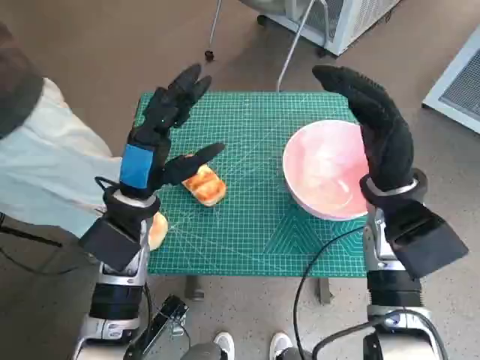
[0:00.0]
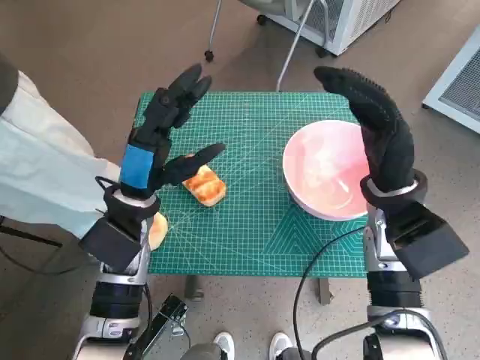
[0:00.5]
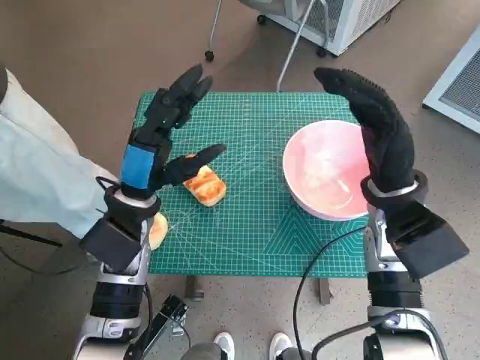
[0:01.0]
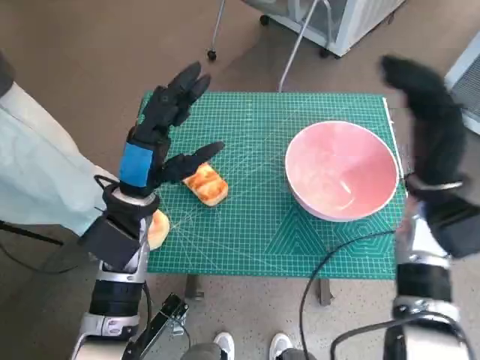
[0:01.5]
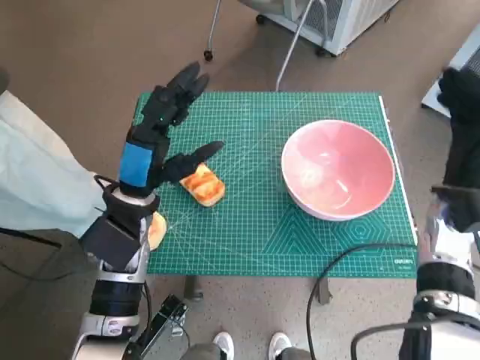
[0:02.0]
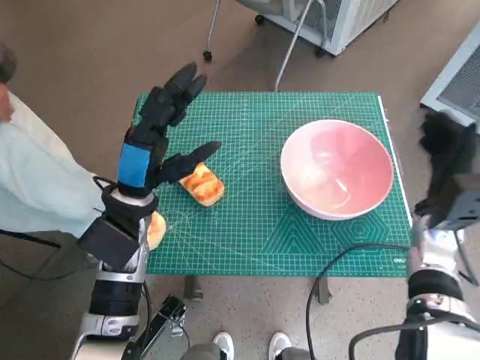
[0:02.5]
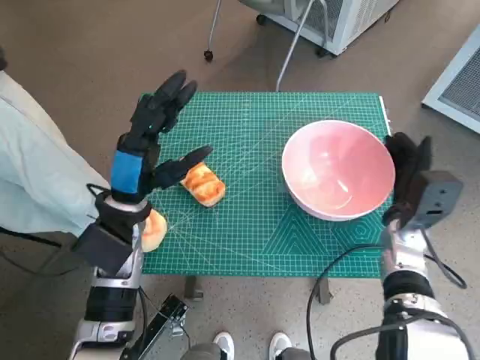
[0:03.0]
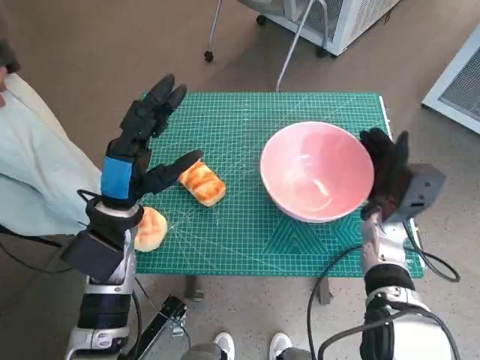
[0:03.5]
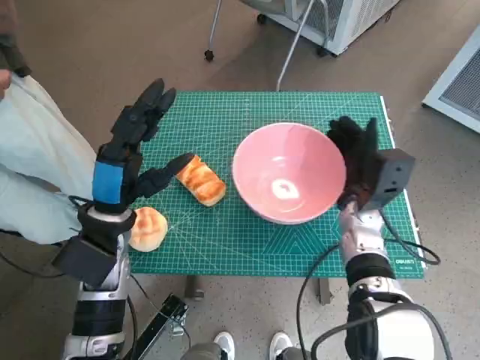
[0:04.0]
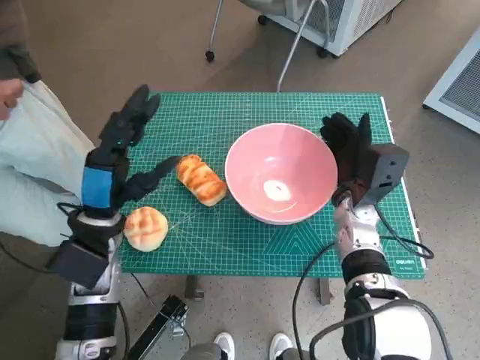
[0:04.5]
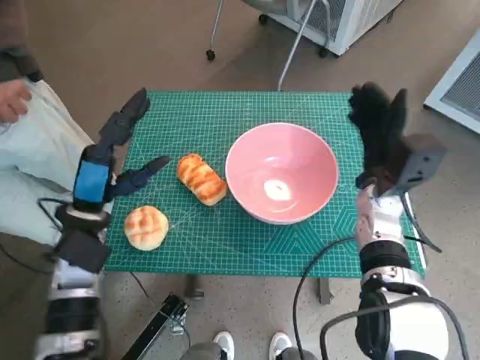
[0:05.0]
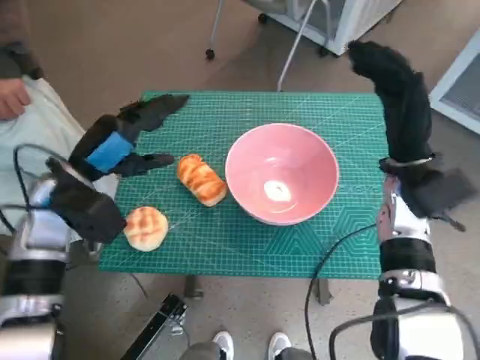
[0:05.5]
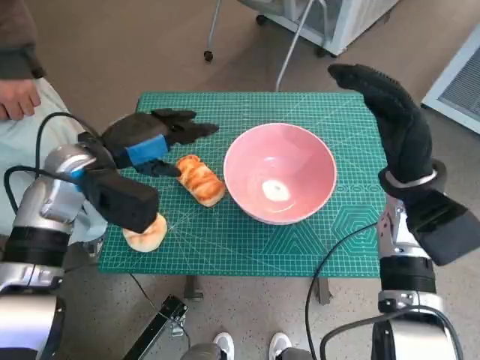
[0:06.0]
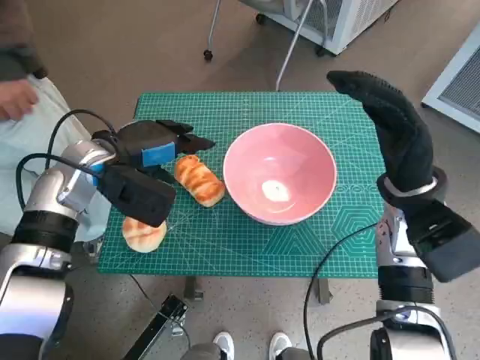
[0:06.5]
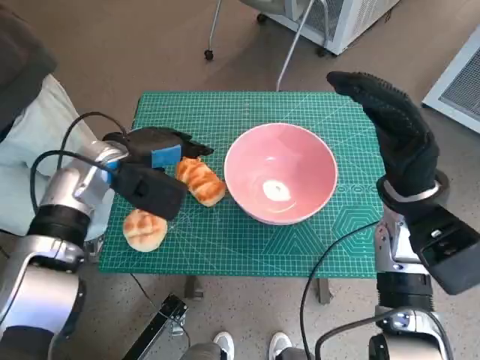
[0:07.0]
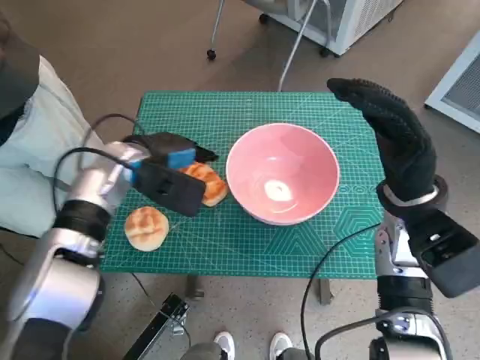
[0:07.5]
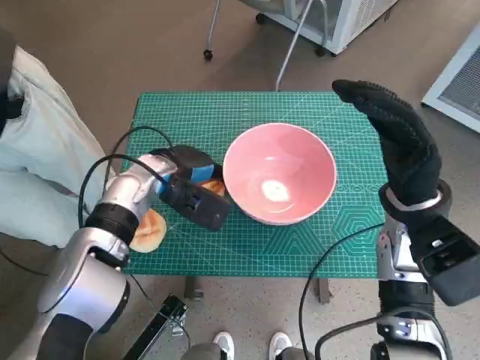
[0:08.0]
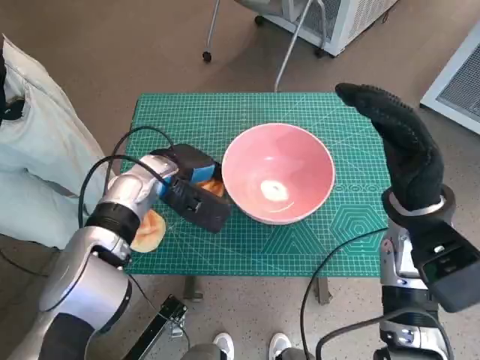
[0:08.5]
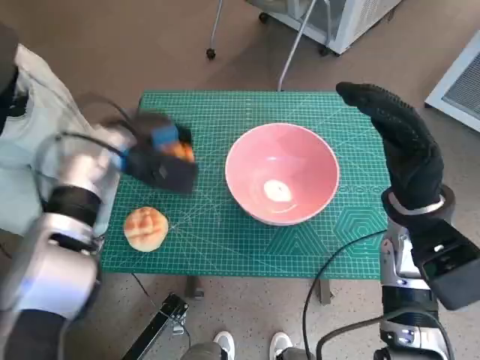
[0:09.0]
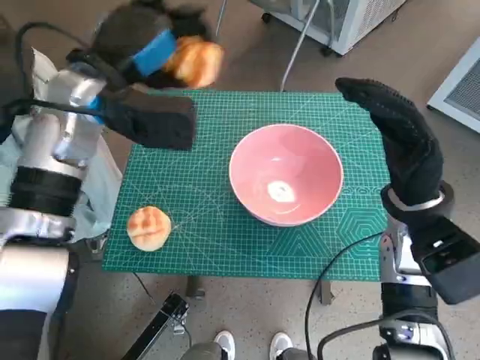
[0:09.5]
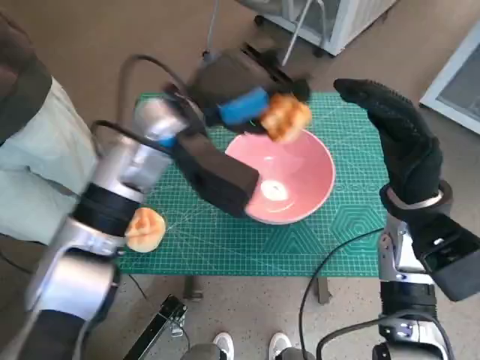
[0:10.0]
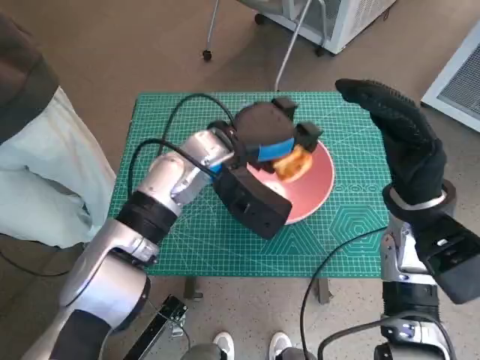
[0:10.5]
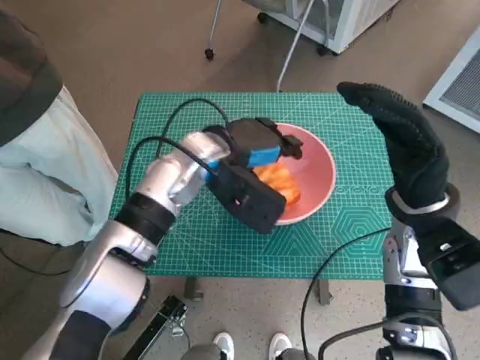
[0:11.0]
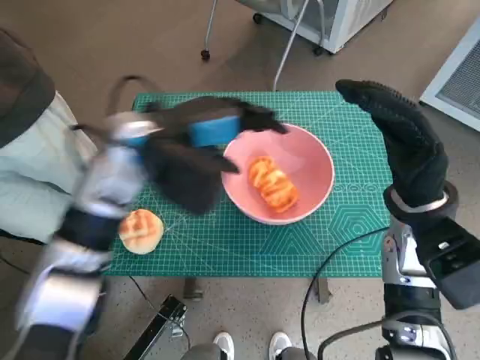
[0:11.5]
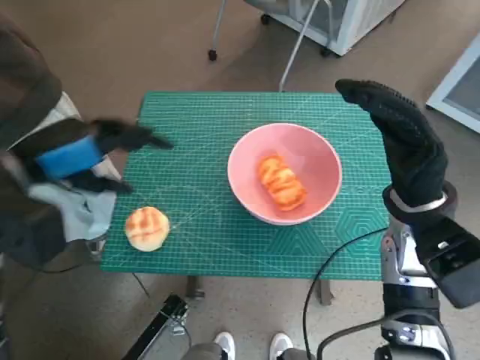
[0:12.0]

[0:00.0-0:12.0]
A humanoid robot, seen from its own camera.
Task of the whole recording: Push the bowl to the center of the table and put the bread into the bowl.
Step, 0:00.0 to 0:04.5: Move the pink bowl to the center of table with right hand.
Step, 0:05.0 to 0:08.0: Grasp the long bread with left hand.
Step, 0:08.5 to 0:11.0: Place the long bread in pink bowl with left hand.
0:02.0 to 0:04.0: The right hand shifts some 10 cm to the left and downward.
0:04.0 to 0:06.0: The left hand travels upward and forward by about 10 cm, while the right hand travels upward by roughly 10 cm.
0:06.0 to 0:08.0: The left hand heads to the right and downward, covering some 10 cm.
0:08.0 to 0:10.0: The left hand shifts some 15 cm upward and to the right.
0:10.0 to 0:12.0: The left hand goes some 15 cm to the left and backward.

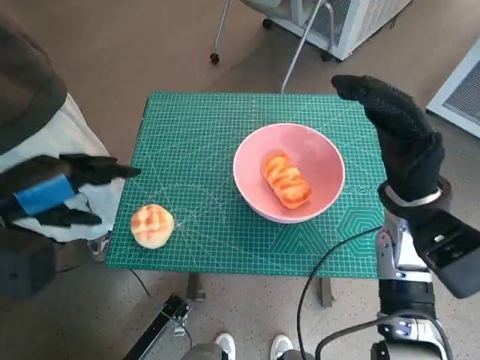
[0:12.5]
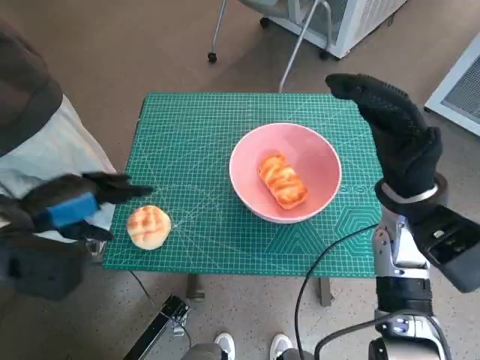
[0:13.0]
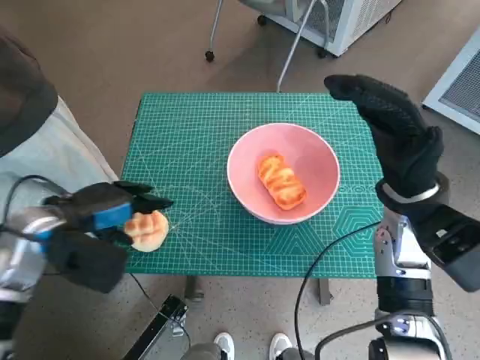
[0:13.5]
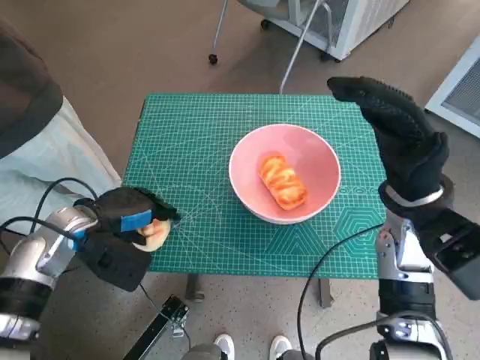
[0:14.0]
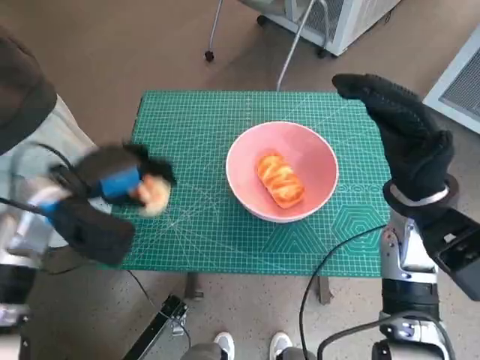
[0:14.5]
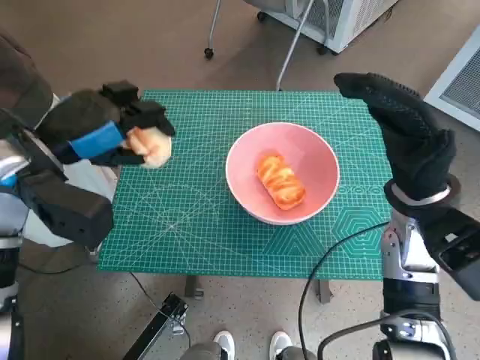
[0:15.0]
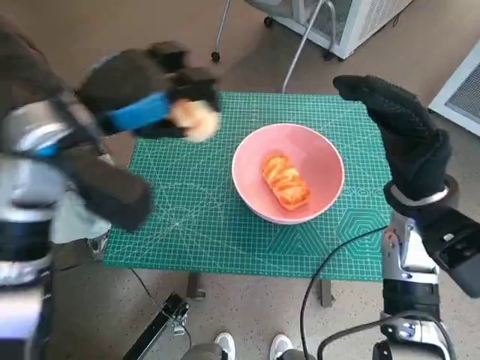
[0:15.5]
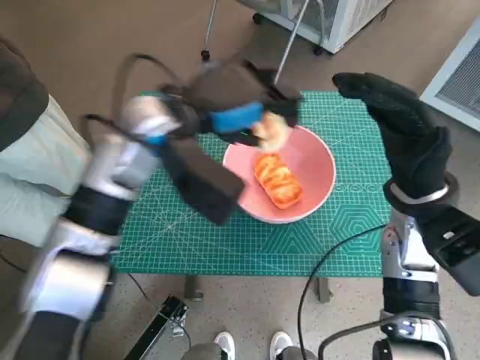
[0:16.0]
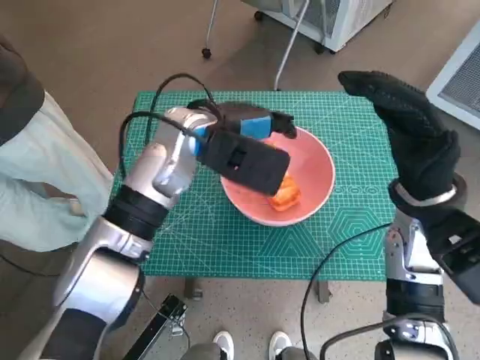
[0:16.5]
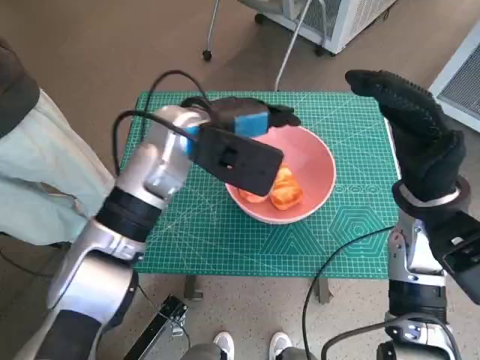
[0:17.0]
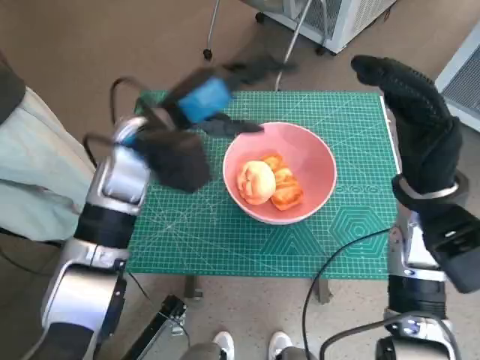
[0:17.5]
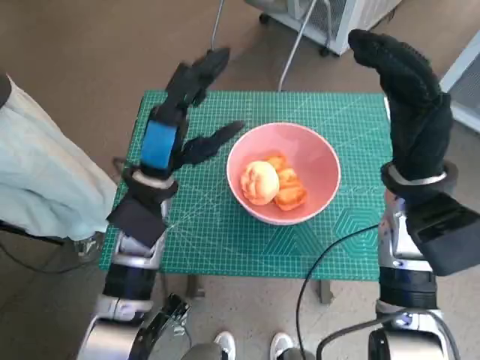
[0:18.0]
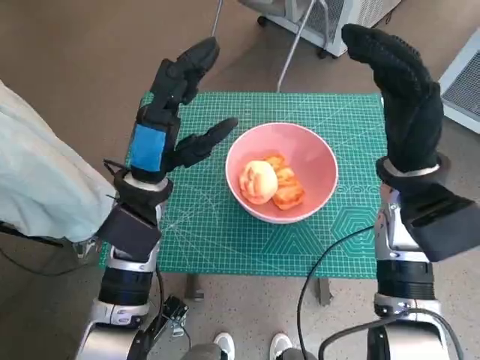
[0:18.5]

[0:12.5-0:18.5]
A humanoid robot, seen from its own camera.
Task of the whole recording: Push the bowl to the center of the table and put the bread into the bowl.
Step, 0:12.5 to 0:14.0: Grasp the round bread with left hand.
Step, 0:14.5 to 0:17.0: Place the round bread in pink bowl with left hand.
0:12.5 to 0:14.5: The left hand heads downward and forward, covering approximately 10 cm.
0:14.5 to 0:16.5: The left hand shifts roughly 15 cm to the right.
0:16.5 to 0:18.5: The left hand goes approximately 10 cm to the left, backward and downward.

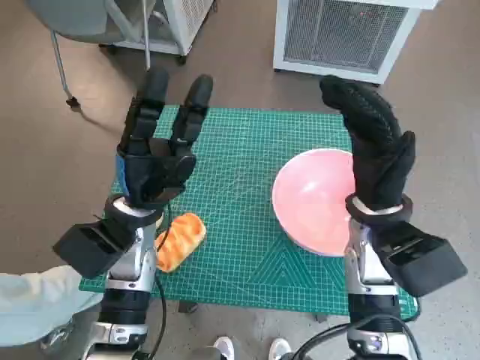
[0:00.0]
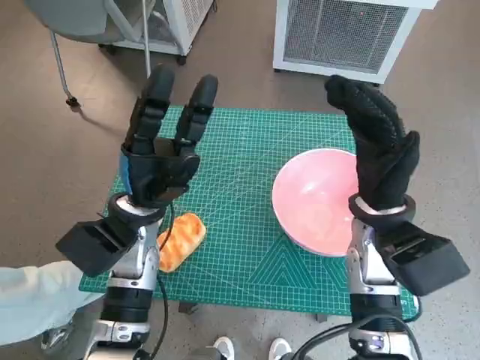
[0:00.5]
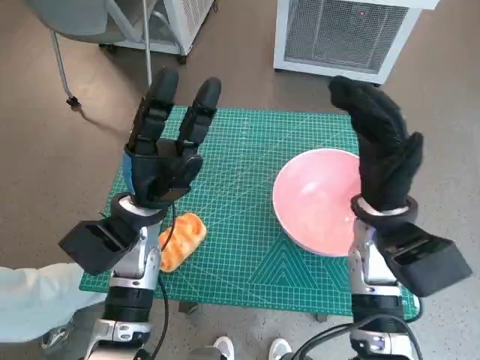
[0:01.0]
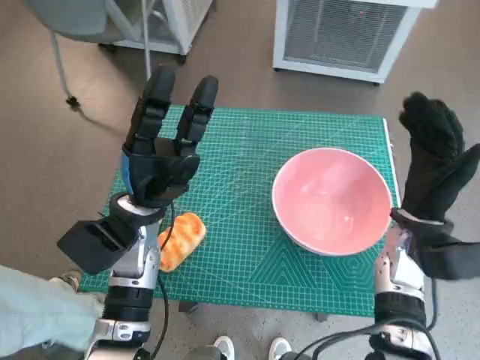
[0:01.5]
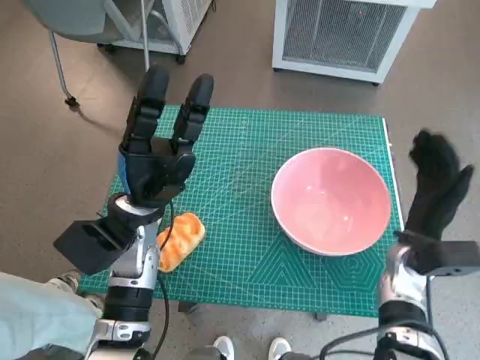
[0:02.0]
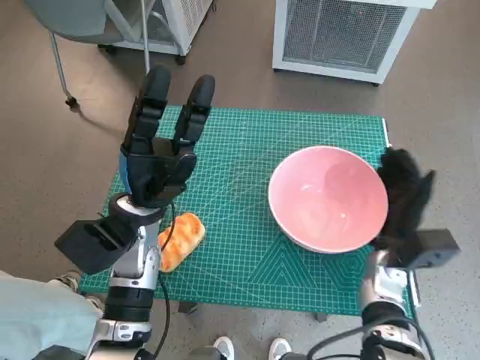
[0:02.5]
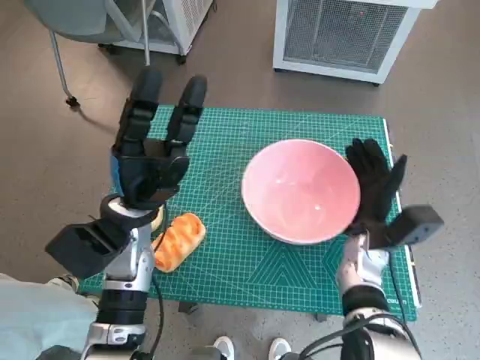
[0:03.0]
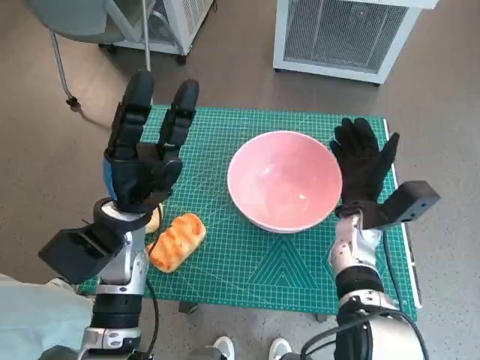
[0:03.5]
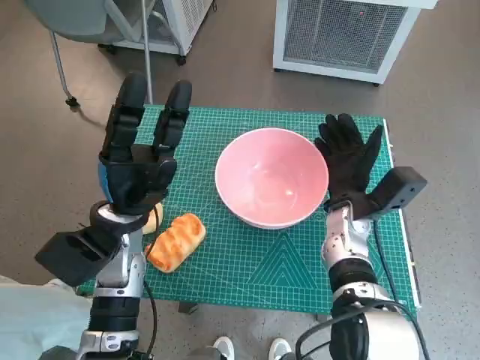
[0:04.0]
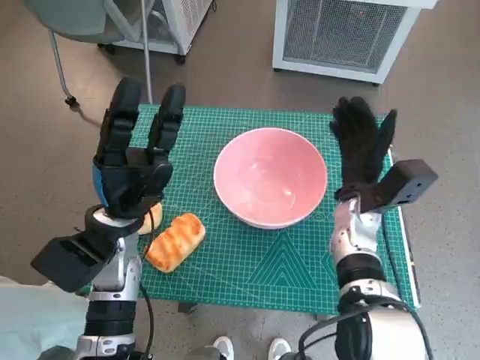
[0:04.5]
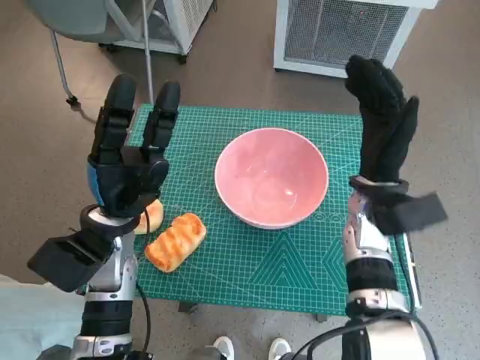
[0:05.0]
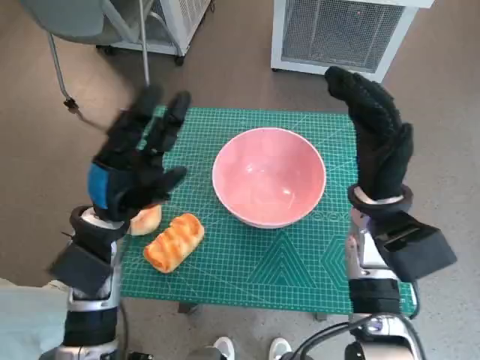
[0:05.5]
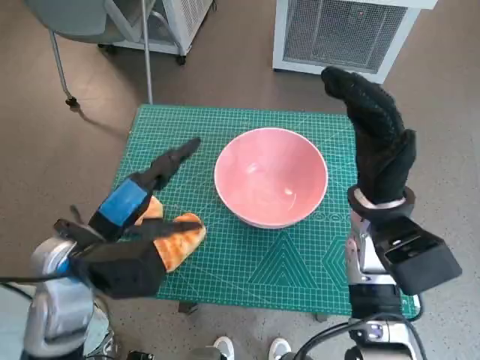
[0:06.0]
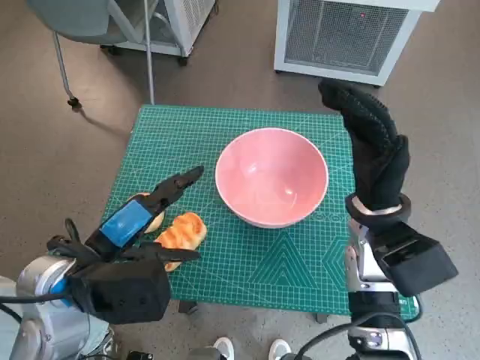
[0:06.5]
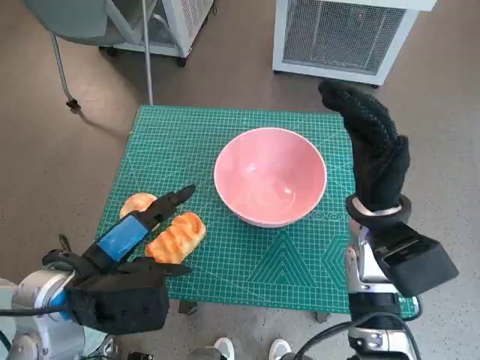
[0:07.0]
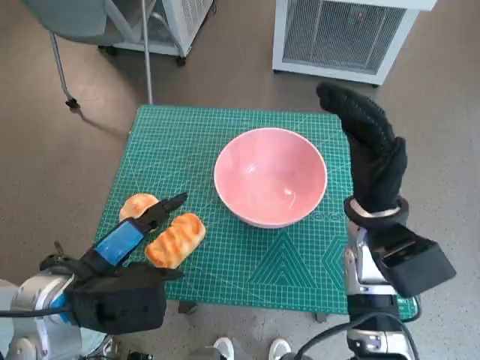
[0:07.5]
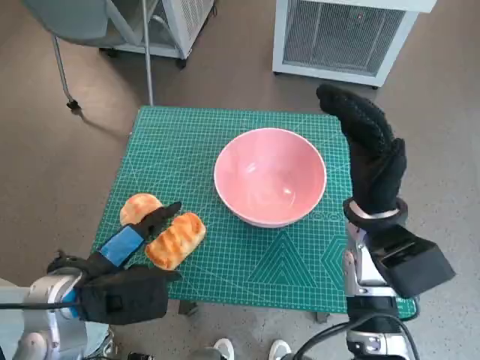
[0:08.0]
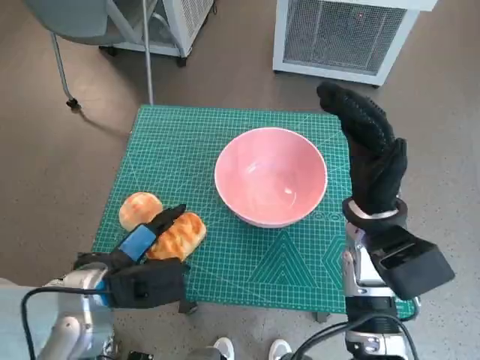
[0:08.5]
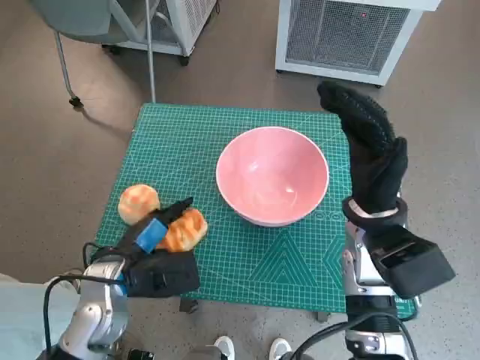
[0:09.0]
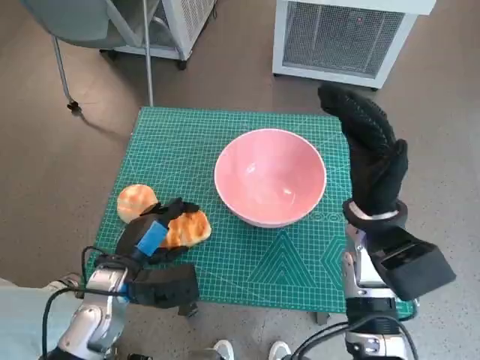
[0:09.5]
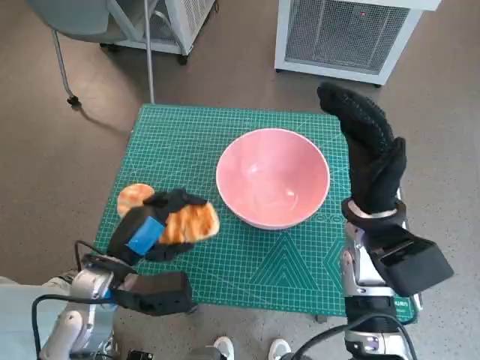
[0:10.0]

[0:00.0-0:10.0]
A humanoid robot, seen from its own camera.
Task of the whole recording: Push the bowl to the center of the table and put the bread into the bowl.
Step, 0:00.0 to 0:04.0: Move the pink bowl to the center of table with right hand.
Step, 0:04.5 to 0:09.0: Grasp the long bread with left hand.
0:02.0 to 0:04.0: The right hand heads to the left, covering approximately 10 cm.
0:04.0 to 0:06.0: The left hand ends up some 5 cm from where it was. Meanwhile the right hand travels upward by roughly 10 cm.
0:08.0 to 0:10.0: The left hand is displaced downward by some 5 cm.
